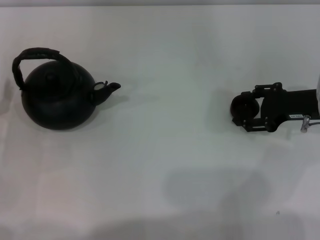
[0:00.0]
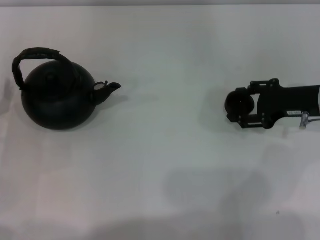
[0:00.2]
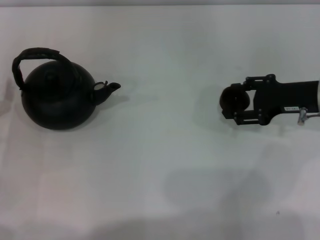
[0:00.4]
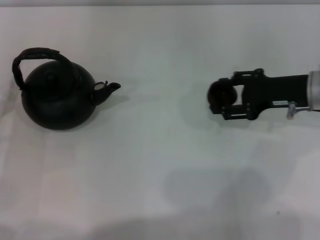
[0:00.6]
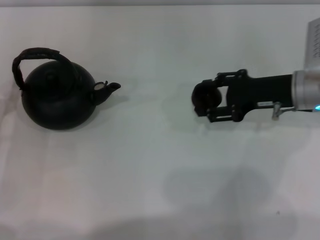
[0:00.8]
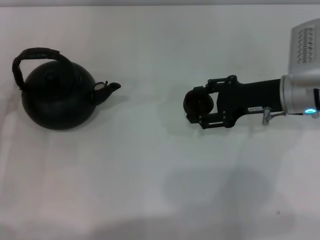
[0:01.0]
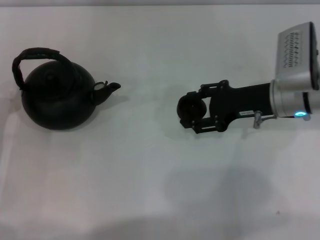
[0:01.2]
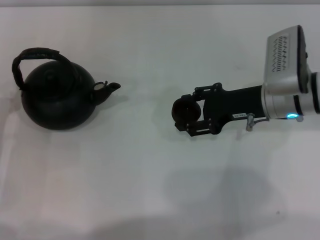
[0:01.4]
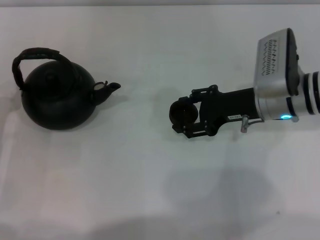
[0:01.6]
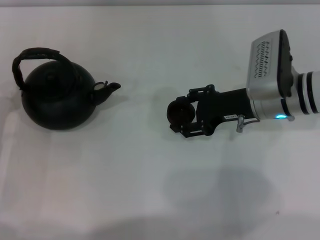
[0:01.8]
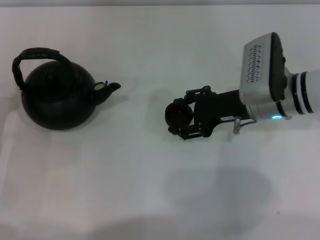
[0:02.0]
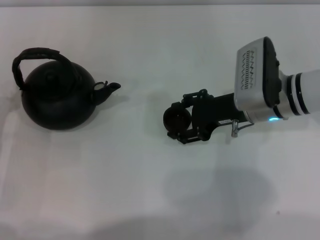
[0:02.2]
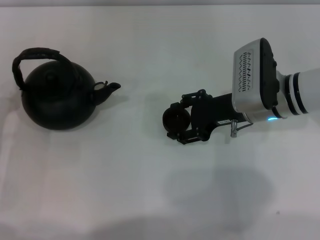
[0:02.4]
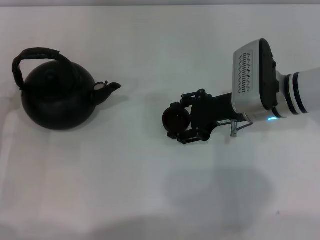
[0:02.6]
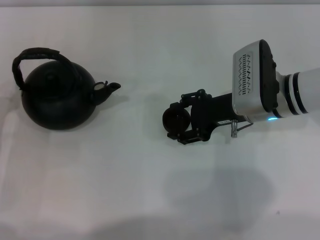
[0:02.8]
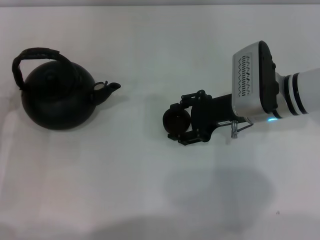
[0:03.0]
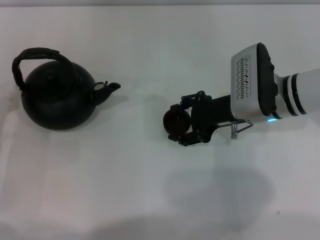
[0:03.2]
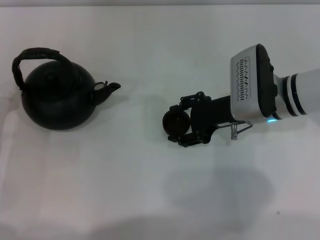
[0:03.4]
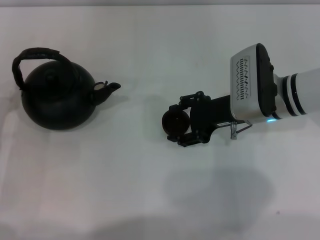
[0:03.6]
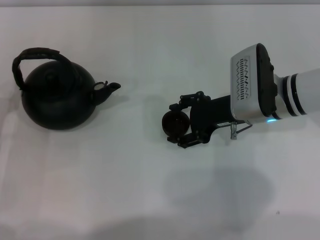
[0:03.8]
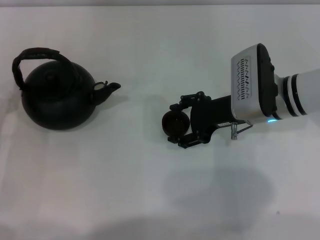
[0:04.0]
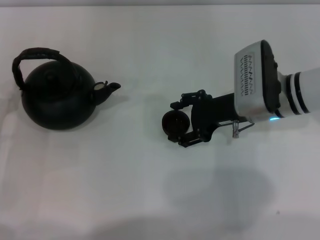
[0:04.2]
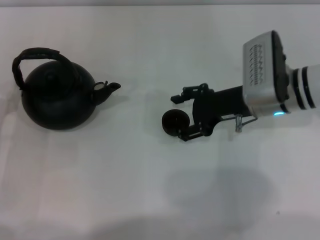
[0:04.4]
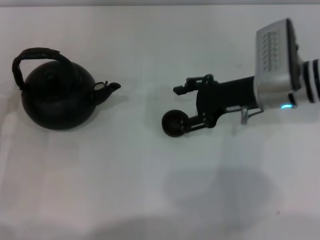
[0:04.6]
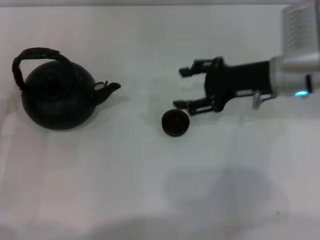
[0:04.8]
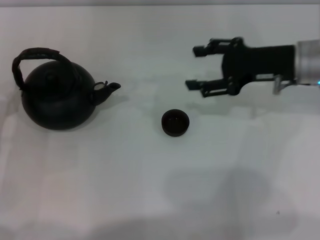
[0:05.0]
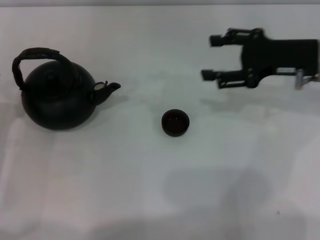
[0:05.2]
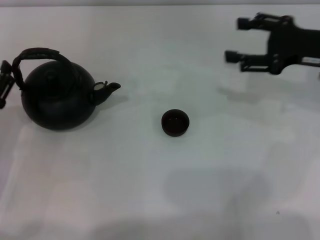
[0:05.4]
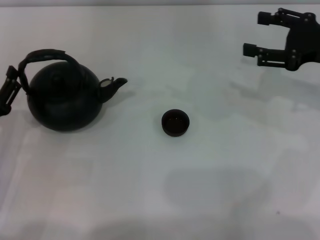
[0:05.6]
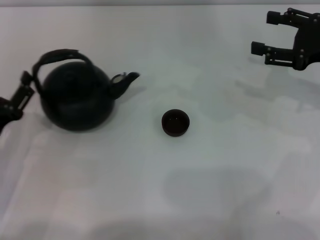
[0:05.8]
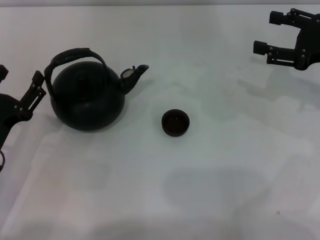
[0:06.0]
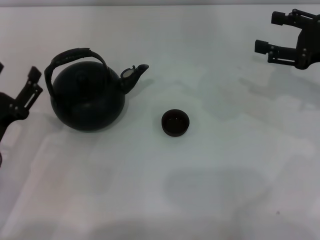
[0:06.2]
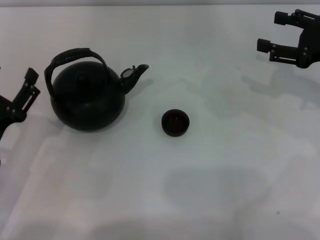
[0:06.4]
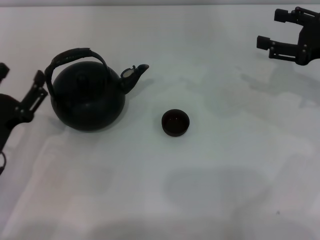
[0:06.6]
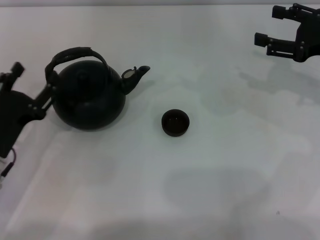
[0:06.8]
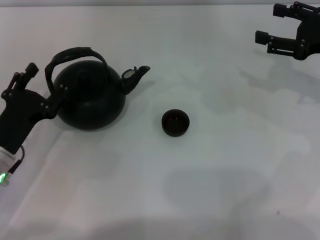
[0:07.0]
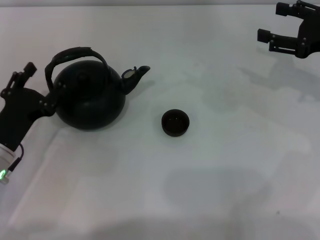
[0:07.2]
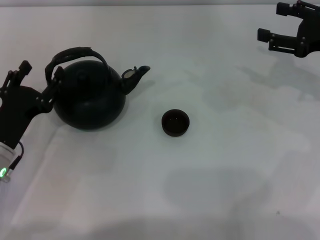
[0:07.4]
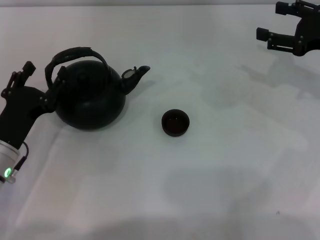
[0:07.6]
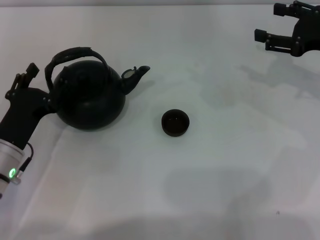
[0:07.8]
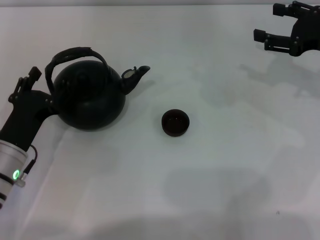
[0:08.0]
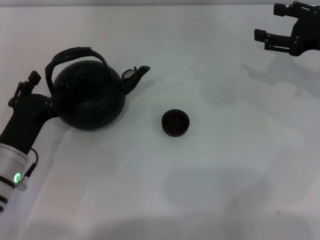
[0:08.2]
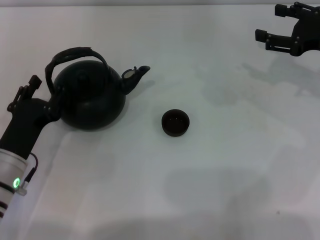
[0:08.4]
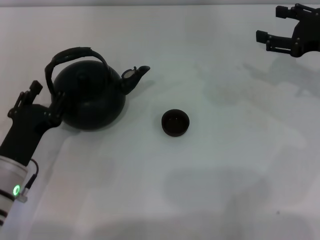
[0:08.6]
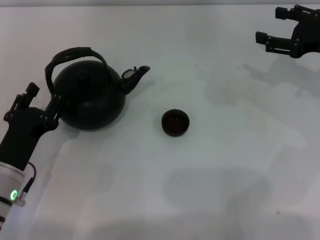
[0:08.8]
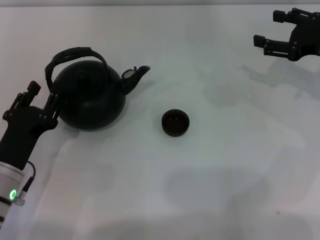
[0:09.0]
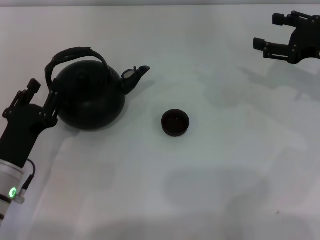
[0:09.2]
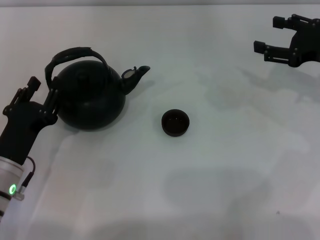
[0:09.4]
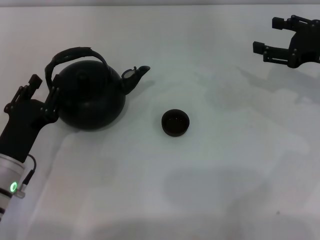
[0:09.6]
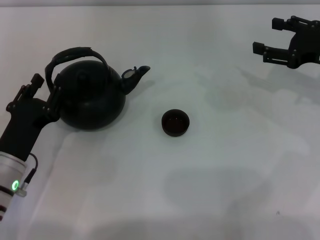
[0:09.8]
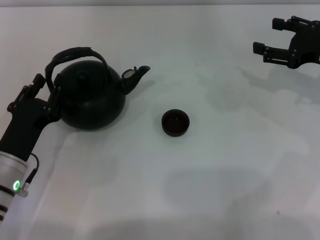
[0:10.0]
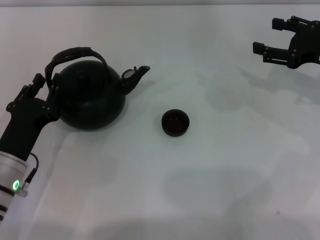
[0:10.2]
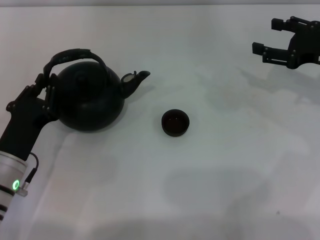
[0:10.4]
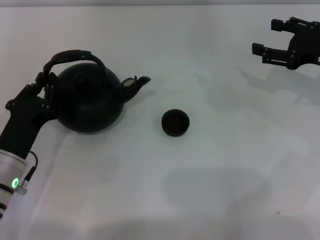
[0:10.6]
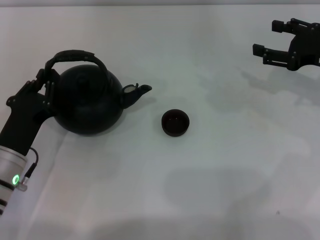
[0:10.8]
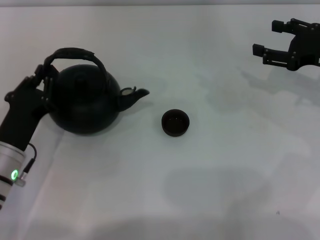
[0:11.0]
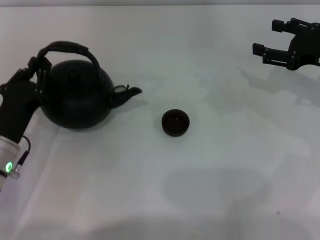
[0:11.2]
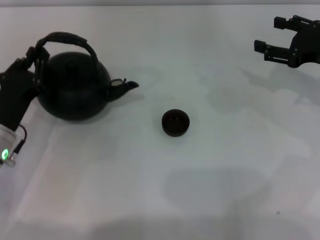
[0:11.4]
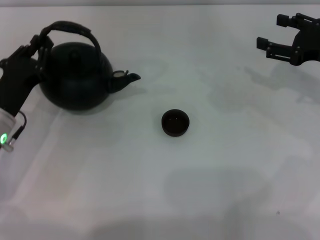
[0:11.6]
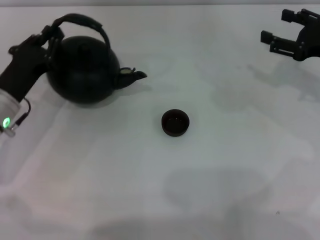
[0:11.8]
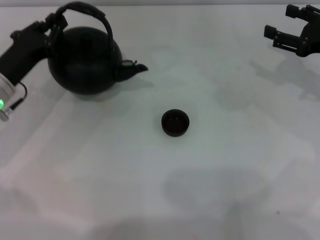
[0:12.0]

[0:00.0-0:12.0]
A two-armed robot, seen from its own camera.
Task of the whole recording: Grasp the handle of the teapot with one hand and pour tea into the teacup.
Step, 0:00.6 to 0:04.6: Place the teacup in the center of view with the right gripper.
Step, 0:04.8 to 0:11.8: Pick up the teapot with the left gripper.
0:00.0 to 0:01.6: The right gripper travels to the left by some 10 cm.
0:01.6 to 0:03.0: The grippers move only a little.
0:03.0 to 0:04.4: Neither gripper changes place.
0:04.4 to 0:06.0: The left gripper changes place by roughly 5 cm; the right gripper heads to the right and upward, covering some 15 cm.
0:06.0 to 0:09.0: The grippers stay close to where they were, moving slightly.
0:09.0 to 0:10.4: The left gripper closes.
0:10.4 to 0:12.0: The left gripper shifts some 10 cm forward.

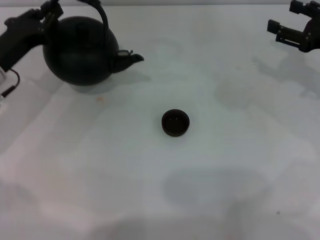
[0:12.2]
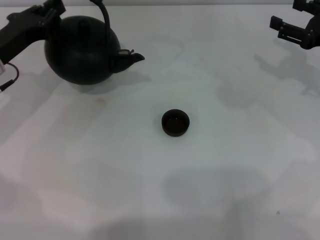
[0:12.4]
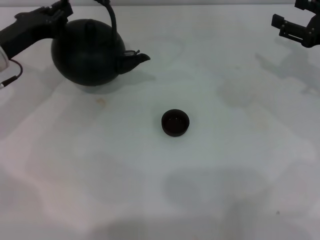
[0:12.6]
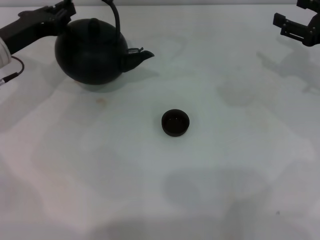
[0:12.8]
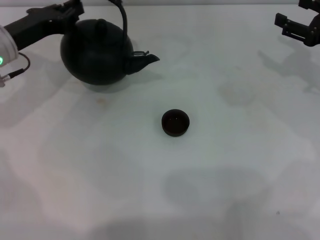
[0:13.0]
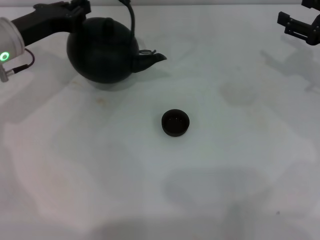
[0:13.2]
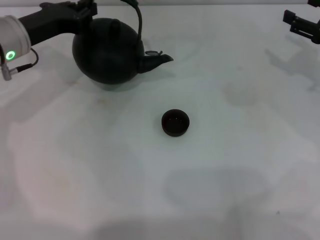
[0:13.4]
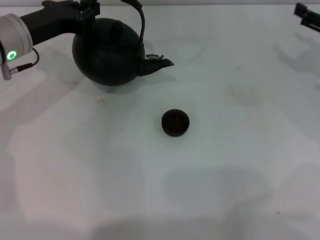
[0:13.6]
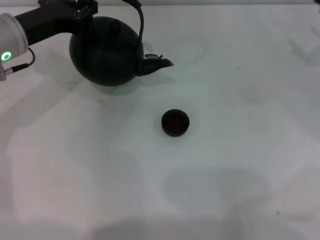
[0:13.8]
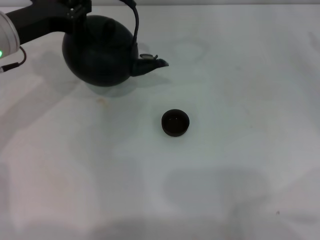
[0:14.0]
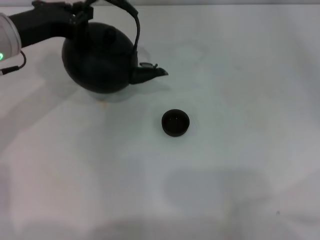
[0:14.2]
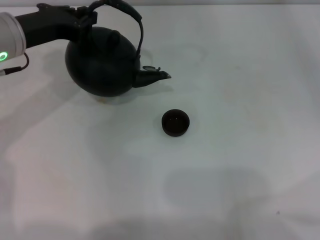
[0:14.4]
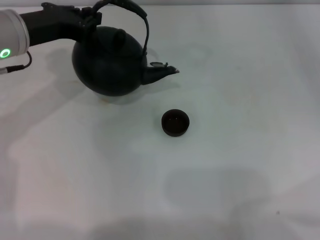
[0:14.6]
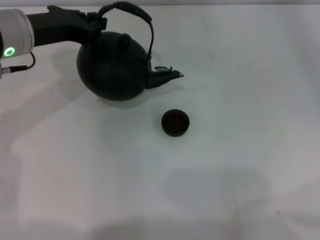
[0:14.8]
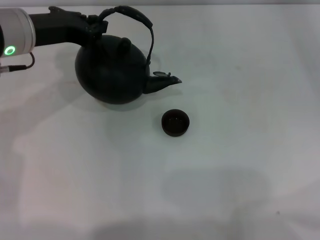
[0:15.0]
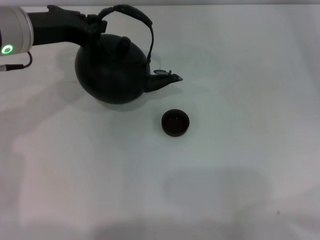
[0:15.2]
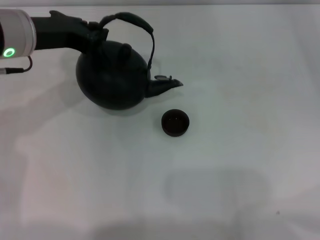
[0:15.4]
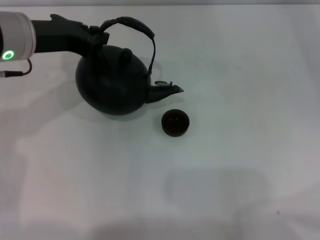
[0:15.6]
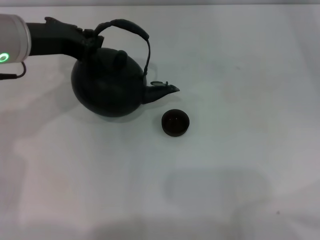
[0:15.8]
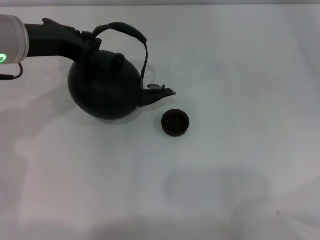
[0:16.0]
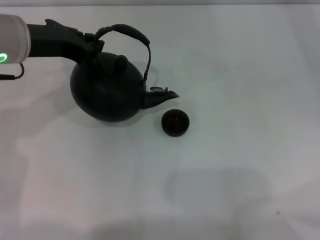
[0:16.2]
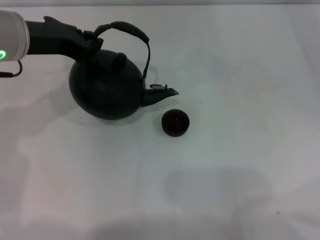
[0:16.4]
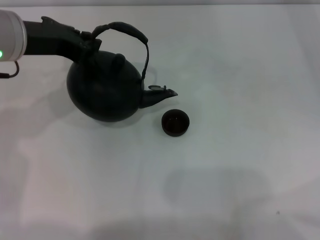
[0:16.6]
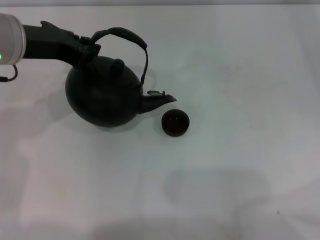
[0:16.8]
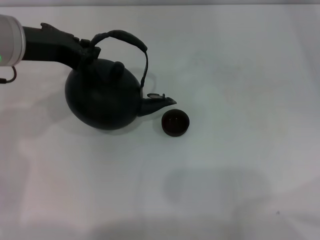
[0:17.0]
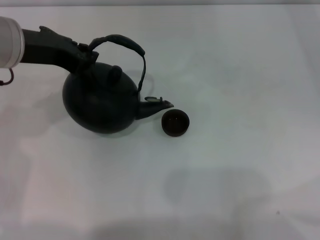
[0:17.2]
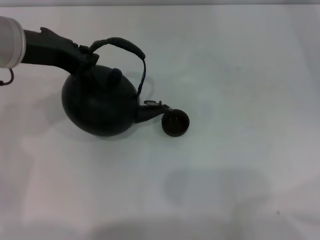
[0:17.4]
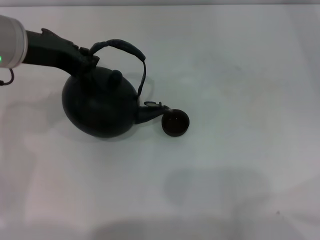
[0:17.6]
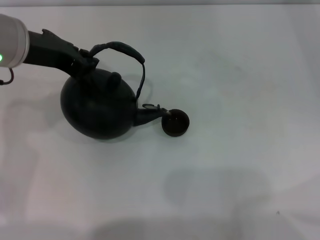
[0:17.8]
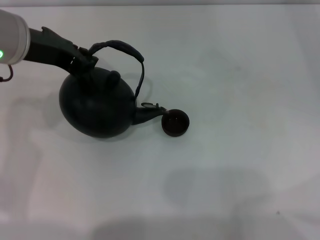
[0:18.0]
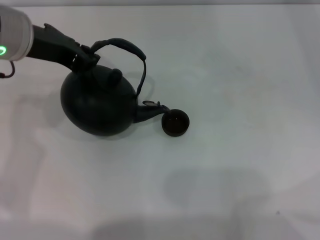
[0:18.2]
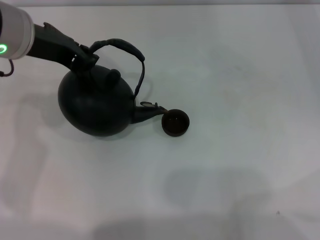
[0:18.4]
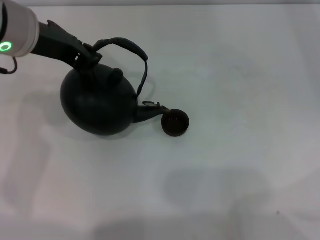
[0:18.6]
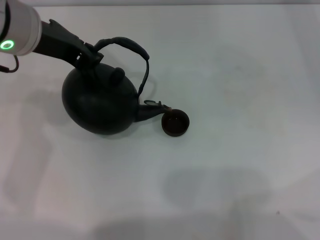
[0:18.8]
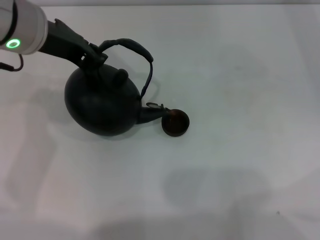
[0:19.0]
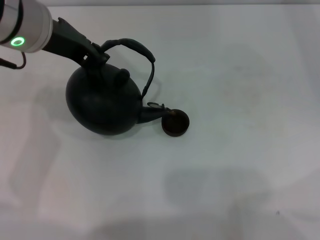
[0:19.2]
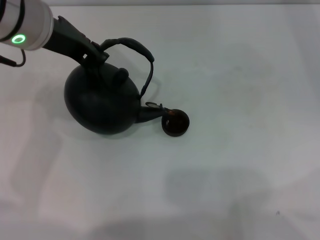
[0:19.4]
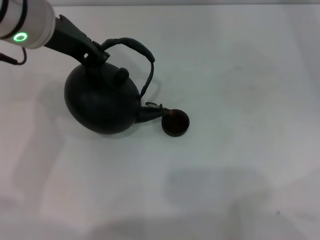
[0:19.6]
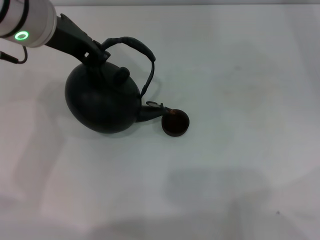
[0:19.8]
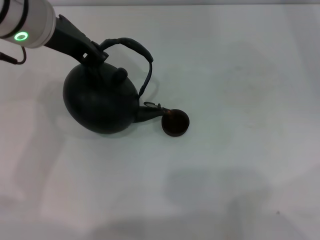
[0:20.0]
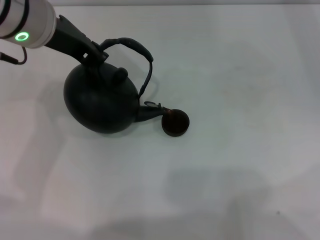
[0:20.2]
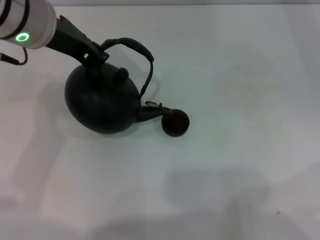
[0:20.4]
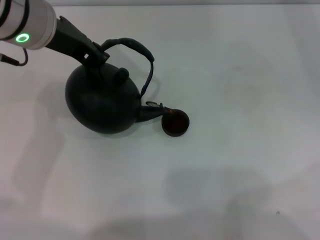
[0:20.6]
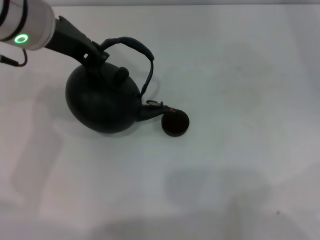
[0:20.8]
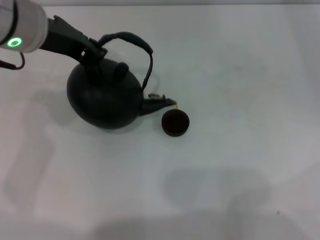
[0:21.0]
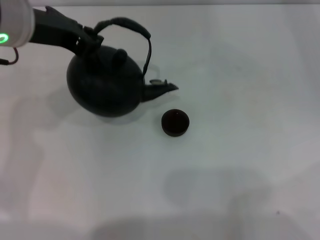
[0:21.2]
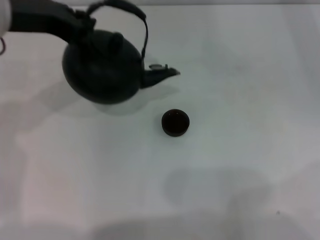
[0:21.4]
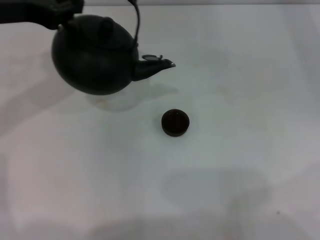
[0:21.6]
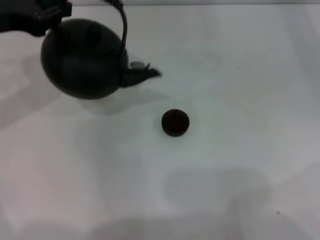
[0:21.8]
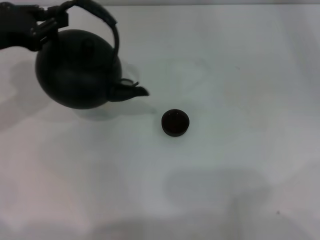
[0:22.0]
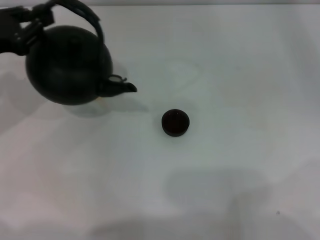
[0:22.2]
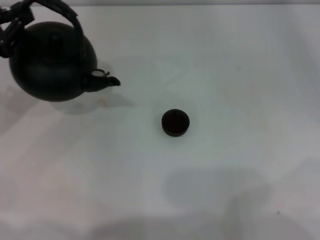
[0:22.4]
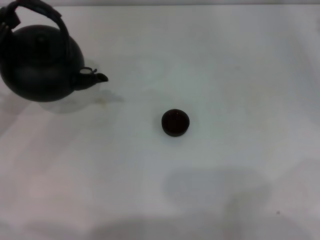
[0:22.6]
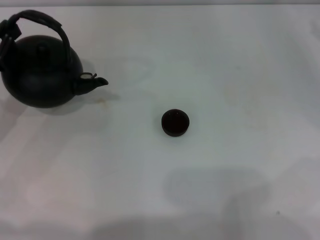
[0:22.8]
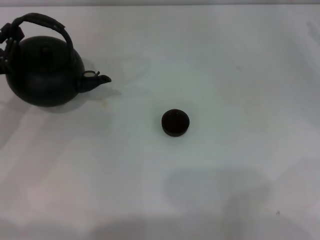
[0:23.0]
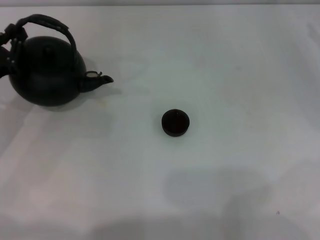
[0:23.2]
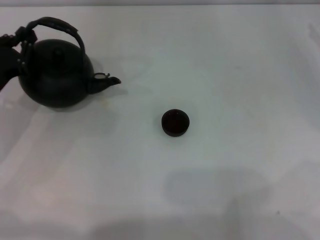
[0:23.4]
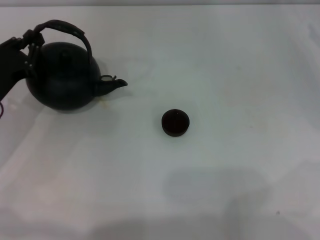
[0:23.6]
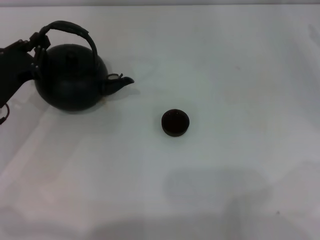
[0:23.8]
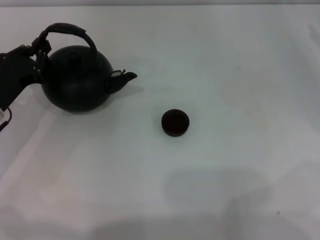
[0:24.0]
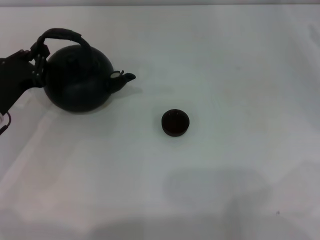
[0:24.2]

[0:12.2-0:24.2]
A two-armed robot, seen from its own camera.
Task of the whole recording: Grasp the handle of the teapot with one hand and pour tea into the teacup.
Step, 0:12.2 to 0:21.4: Pour tea into the teacup with the left gripper.
0:12.2 to 0:13.8: The left gripper moves upward, roughly 5 cm.
0:13.8 to 0:15.2: The right gripper travels to the right by about 10 cm. The left gripper moves some 5 cm.
0:15.2 to 0:16.6: There are only small adjustments of the grippers.
0:16.6 to 0:21.2: The grippers stay close to where they were, moving slightly.
0:21.2 to 0:22.6: The left gripper travels to the left and downward by about 20 cm, while the right gripper travels to the left by roughly 5 cm.
0:22.6 to 0:24.2: The left gripper travels downward by some 5 cm.
